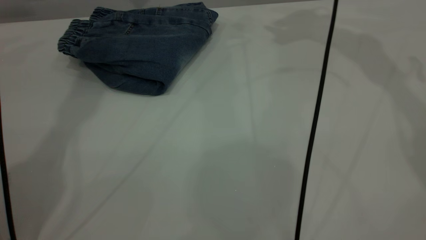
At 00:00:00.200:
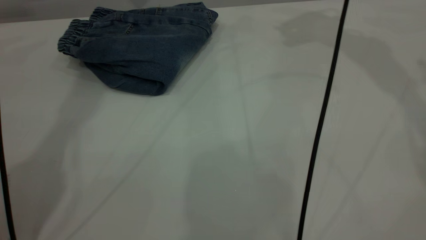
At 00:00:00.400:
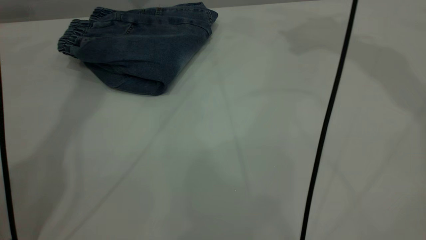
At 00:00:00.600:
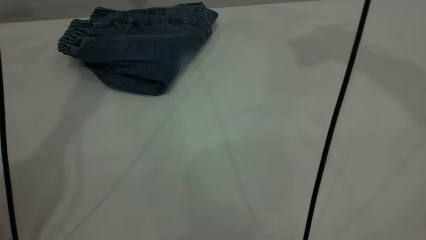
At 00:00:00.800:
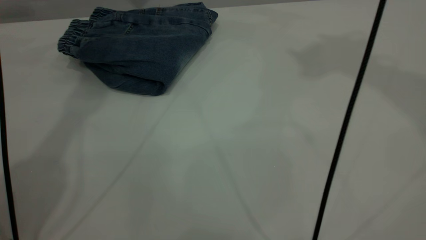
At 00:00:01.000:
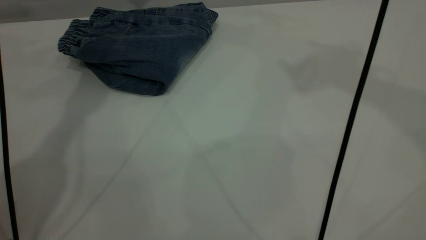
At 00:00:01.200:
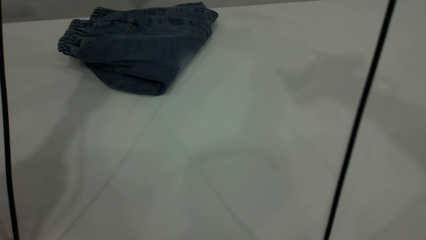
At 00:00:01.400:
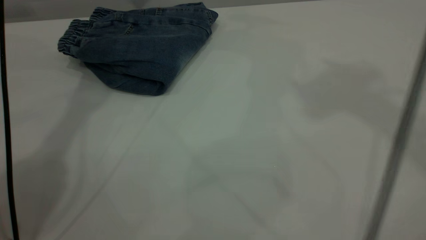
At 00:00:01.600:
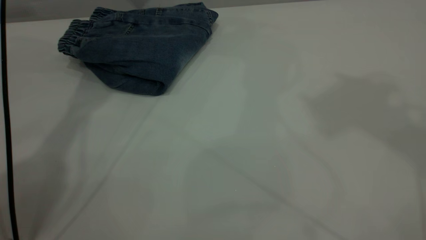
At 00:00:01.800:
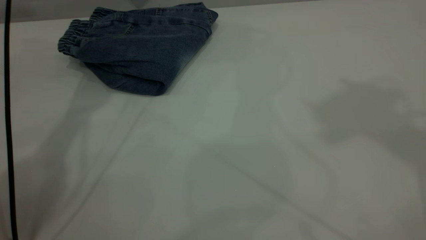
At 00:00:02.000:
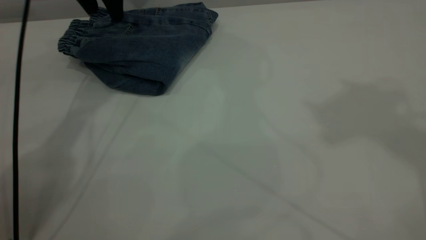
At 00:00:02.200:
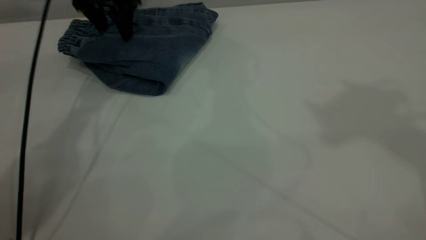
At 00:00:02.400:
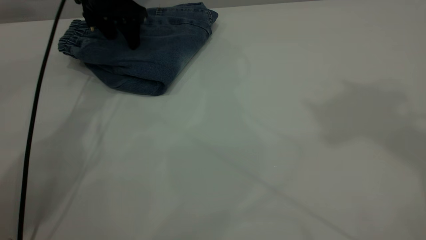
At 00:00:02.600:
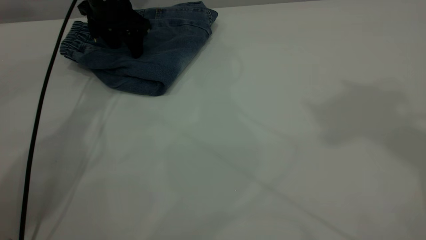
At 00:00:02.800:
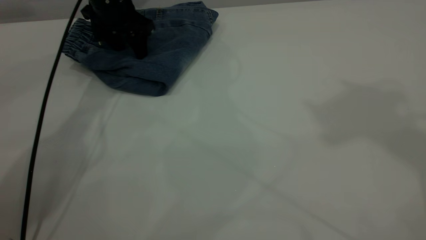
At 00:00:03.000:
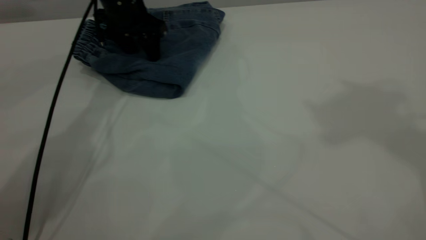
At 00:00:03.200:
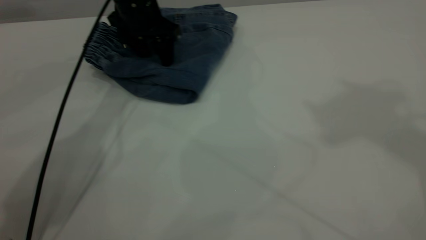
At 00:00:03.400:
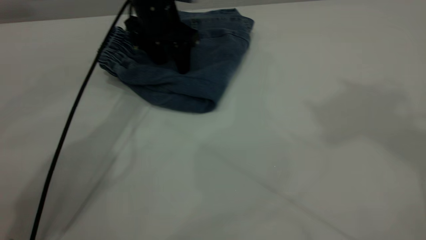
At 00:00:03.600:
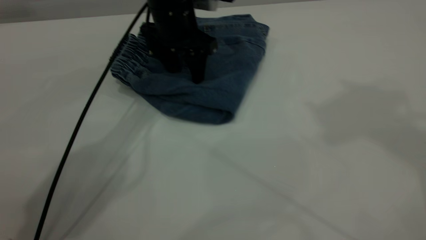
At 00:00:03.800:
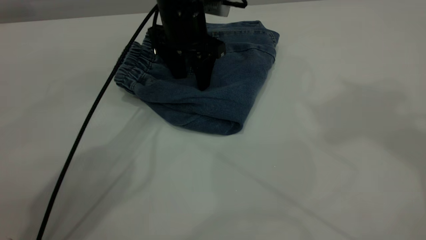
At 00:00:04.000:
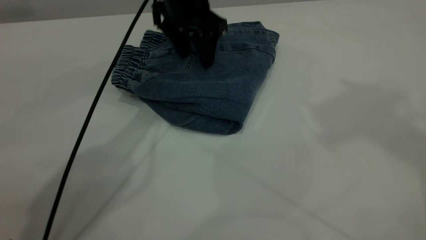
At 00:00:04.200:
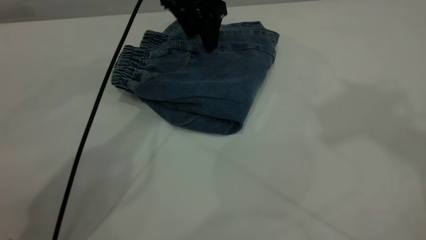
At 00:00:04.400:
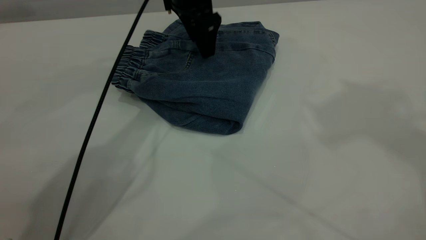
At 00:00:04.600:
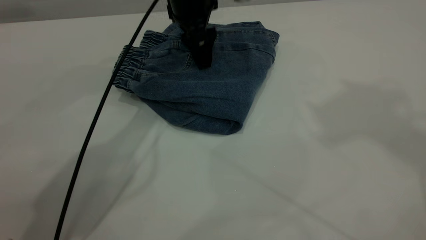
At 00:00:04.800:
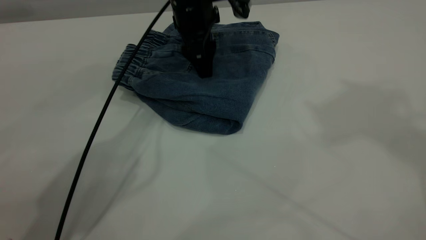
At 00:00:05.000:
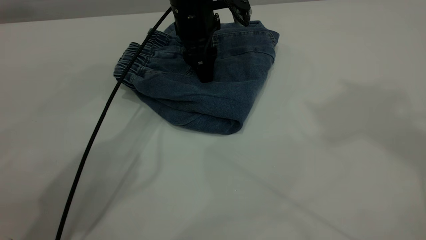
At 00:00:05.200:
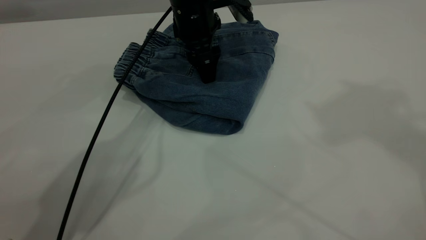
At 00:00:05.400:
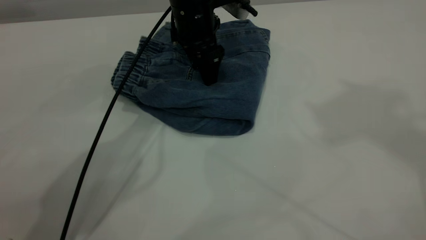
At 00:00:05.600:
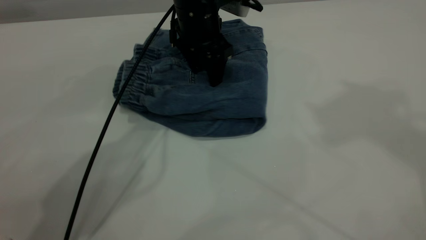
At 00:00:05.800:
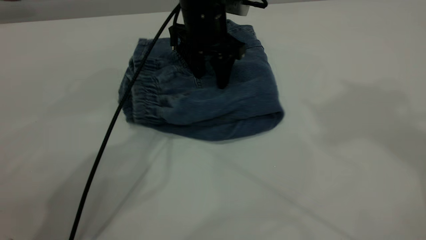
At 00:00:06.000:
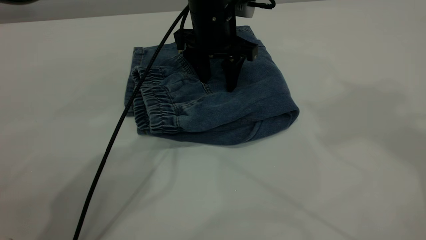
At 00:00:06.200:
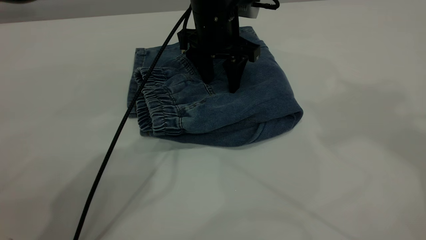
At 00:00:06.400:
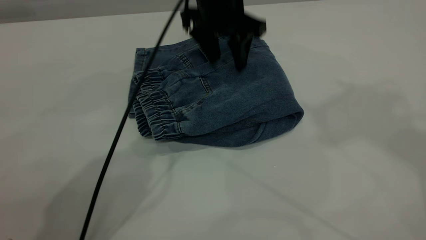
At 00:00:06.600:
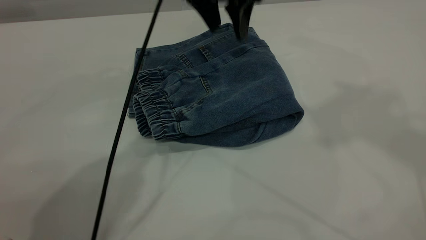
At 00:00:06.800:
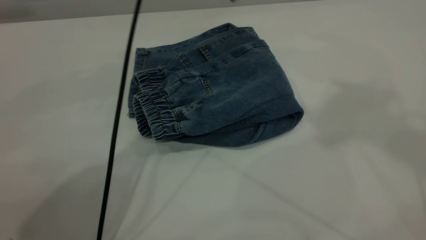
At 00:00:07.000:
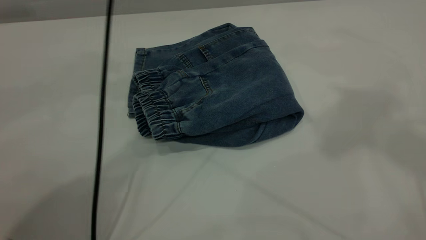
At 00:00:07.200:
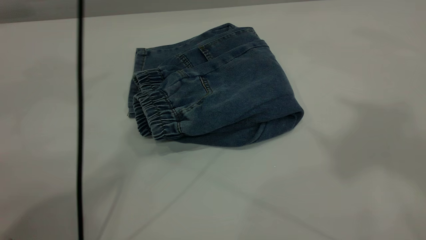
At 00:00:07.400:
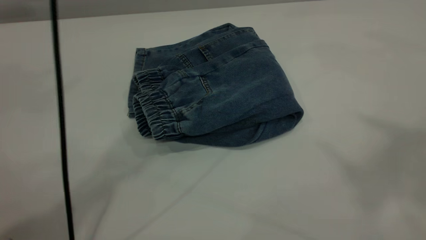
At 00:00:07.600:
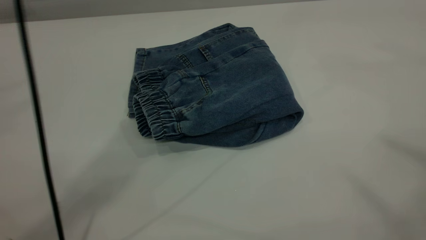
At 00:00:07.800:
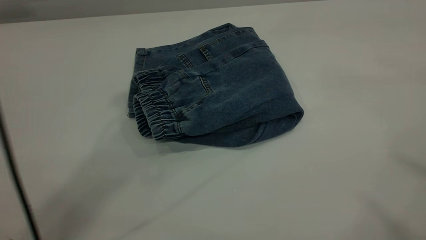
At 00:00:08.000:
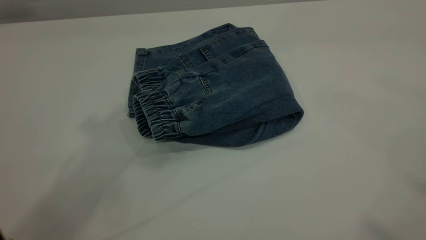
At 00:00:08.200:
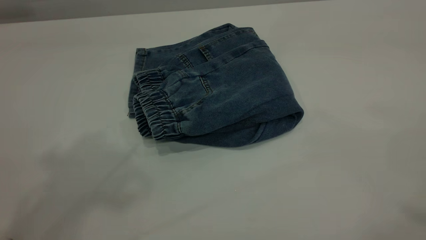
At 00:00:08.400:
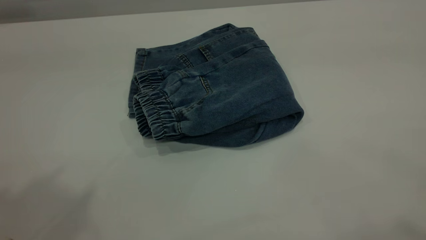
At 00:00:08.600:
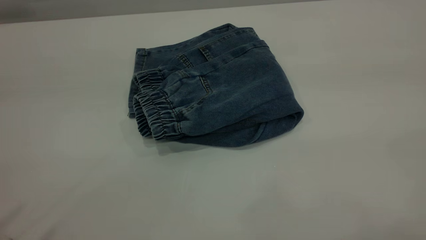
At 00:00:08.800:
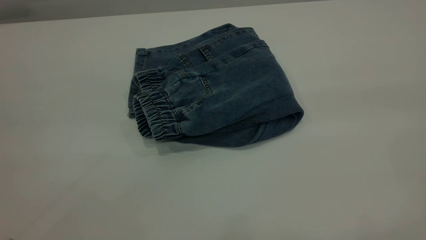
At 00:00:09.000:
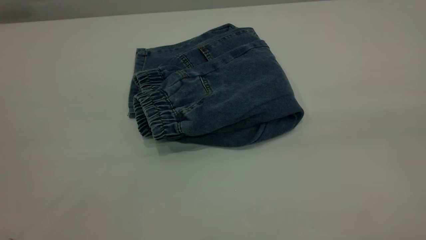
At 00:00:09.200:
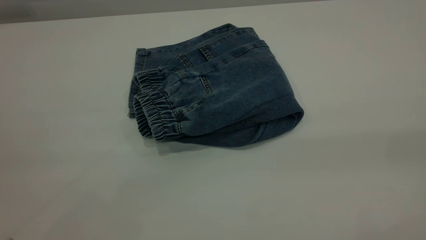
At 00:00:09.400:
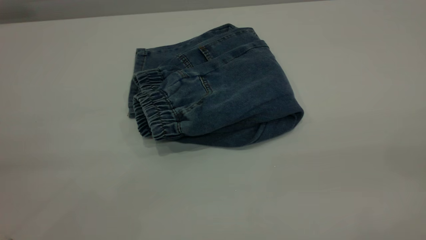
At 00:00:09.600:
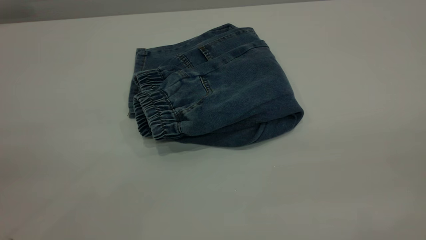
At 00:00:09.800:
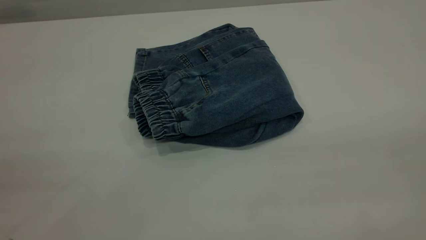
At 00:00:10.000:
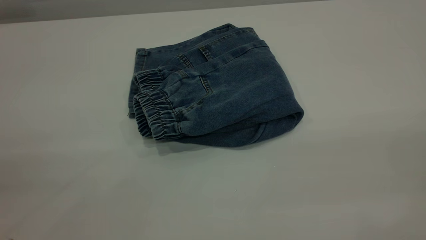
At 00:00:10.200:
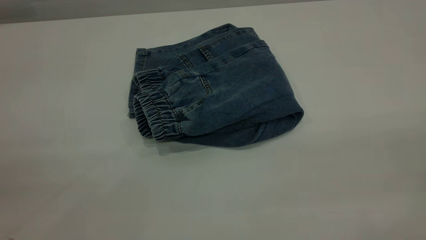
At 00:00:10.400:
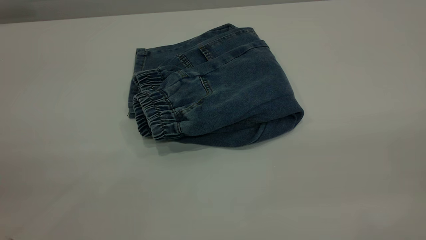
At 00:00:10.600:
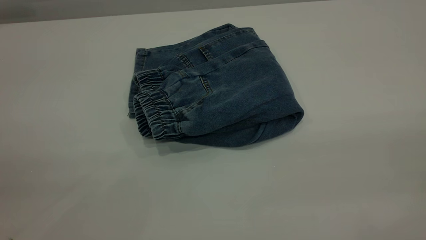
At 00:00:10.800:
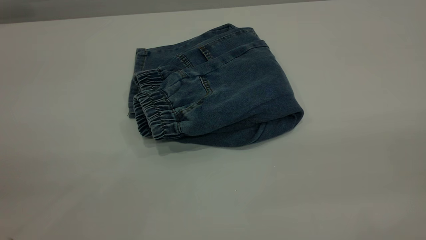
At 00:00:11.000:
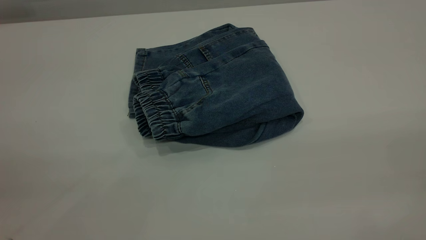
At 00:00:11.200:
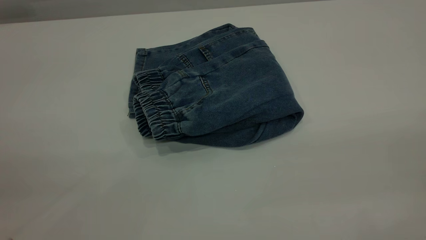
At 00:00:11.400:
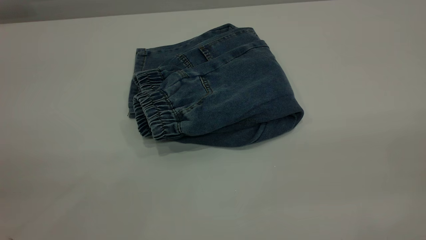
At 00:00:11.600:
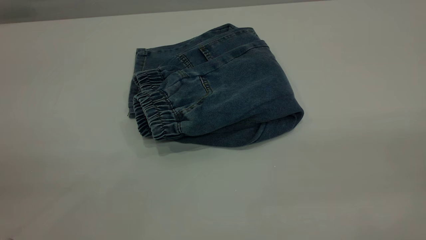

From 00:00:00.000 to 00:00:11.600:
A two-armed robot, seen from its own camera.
From 00:00:00.000 to 00:00:01.400: The right gripper is displaced upward and backward by approximately 30 cm; the left gripper heads downward, covering some 10 cm.
From 00:00:01.400 to 00:00:02.800: The left gripper is displaced downward by roughly 20 cm.
From 00:00:02.800 to 00:00:04.400: The left gripper moves to the right, approximately 15 cm.
From 00:00:04.400 to 00:00:05.800: The left gripper shifts about 5 cm downward.
From 00:00:05.800 to 00:00:07.200: The left gripper travels upward by approximately 30 cm. The right gripper goes about 5 cm backward.
From 00:00:07.200 to 00:00:08.800: The left gripper is displaced backward and to the left by about 40 cm.

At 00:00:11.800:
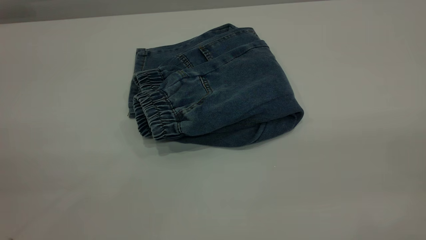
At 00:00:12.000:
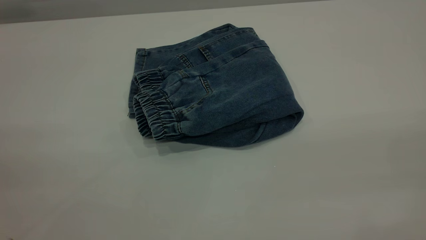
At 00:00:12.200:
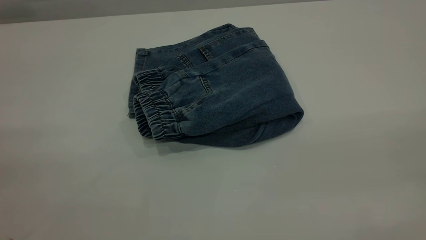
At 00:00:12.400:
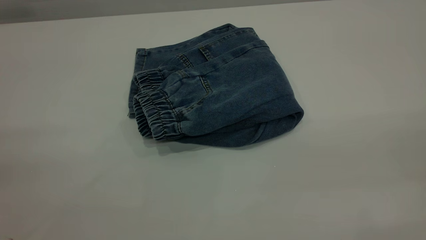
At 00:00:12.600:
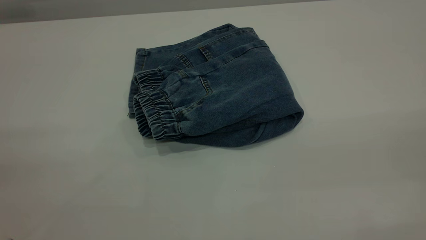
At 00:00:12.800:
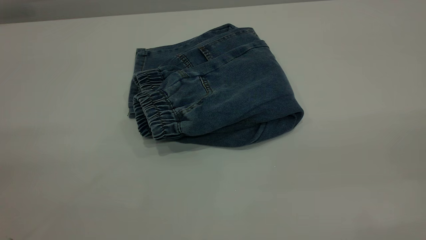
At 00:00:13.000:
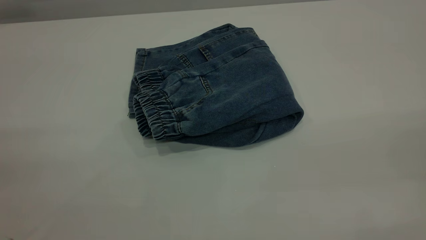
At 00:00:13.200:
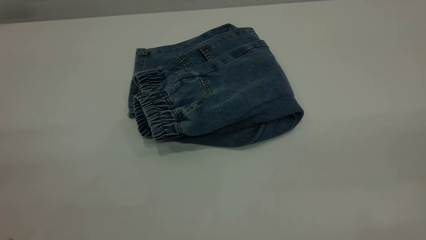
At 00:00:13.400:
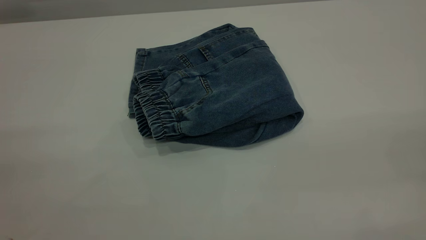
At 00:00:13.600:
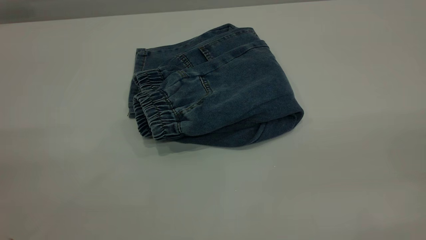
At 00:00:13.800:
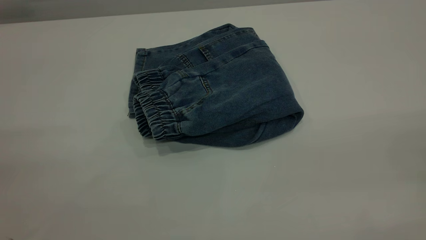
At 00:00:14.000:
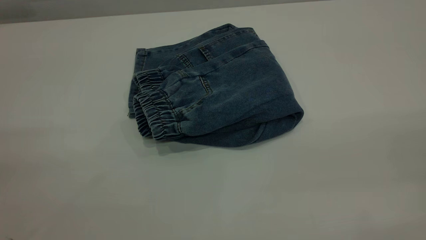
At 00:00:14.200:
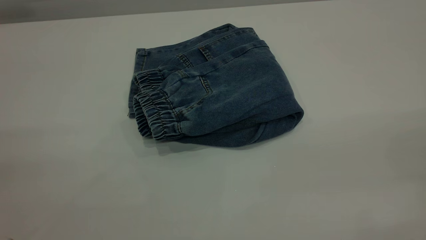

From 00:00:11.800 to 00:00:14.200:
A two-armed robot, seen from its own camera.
From 00:00:13.000 to 00:00:14.200: The two grippers keep their place.
